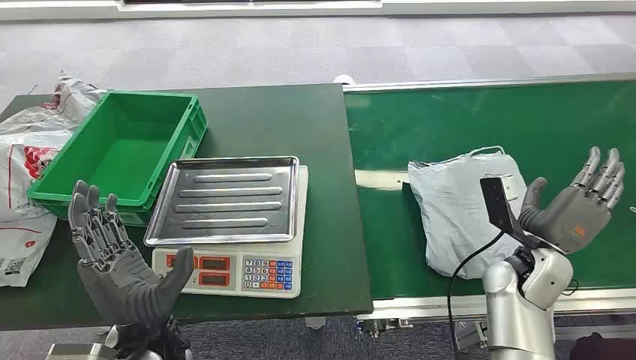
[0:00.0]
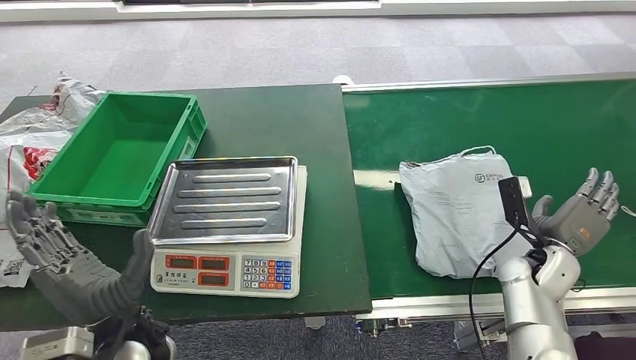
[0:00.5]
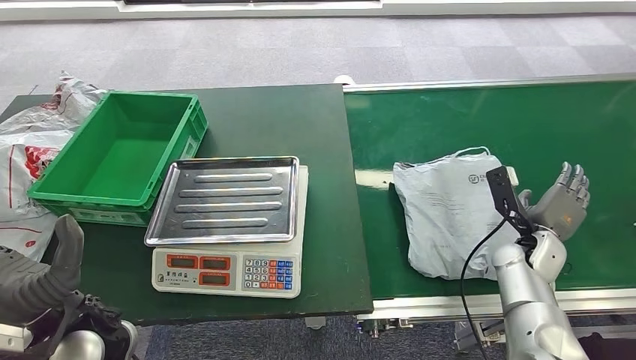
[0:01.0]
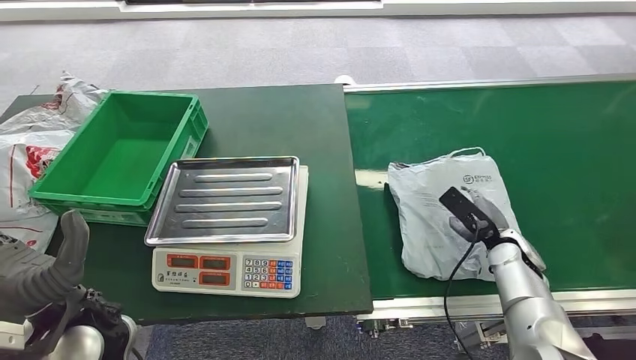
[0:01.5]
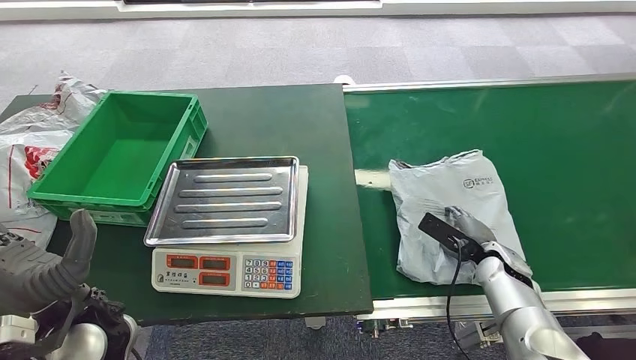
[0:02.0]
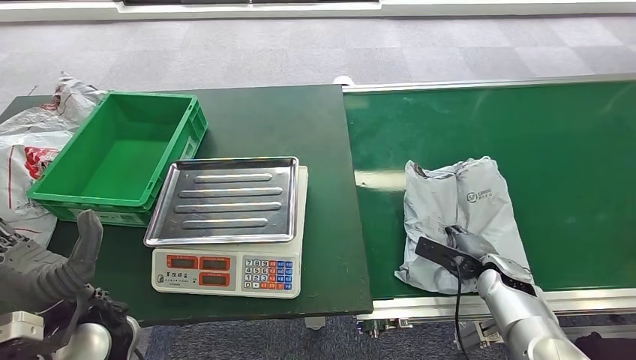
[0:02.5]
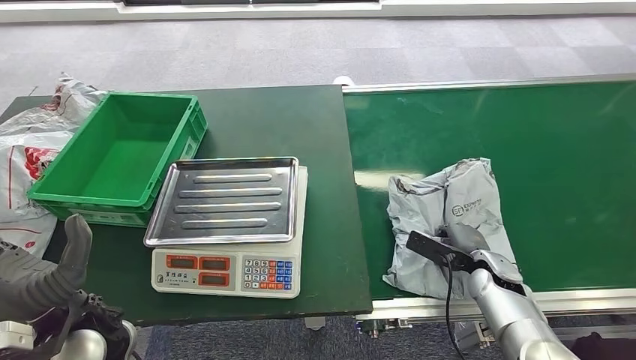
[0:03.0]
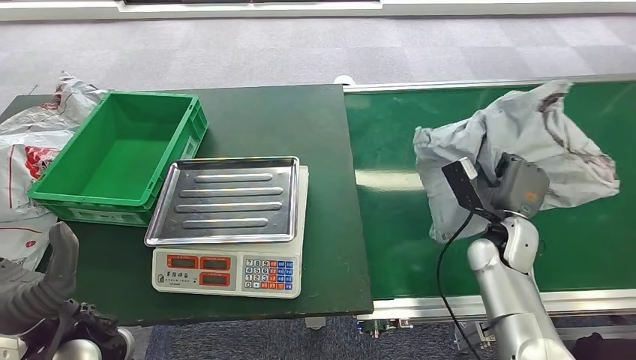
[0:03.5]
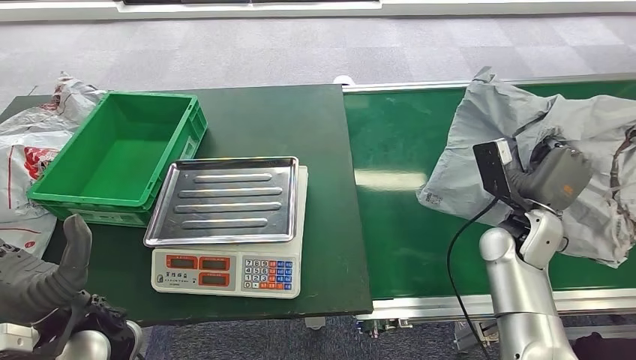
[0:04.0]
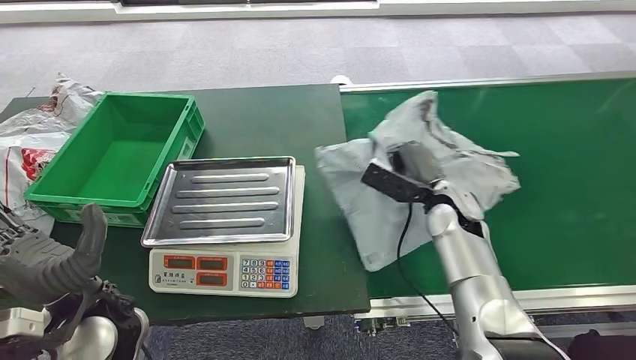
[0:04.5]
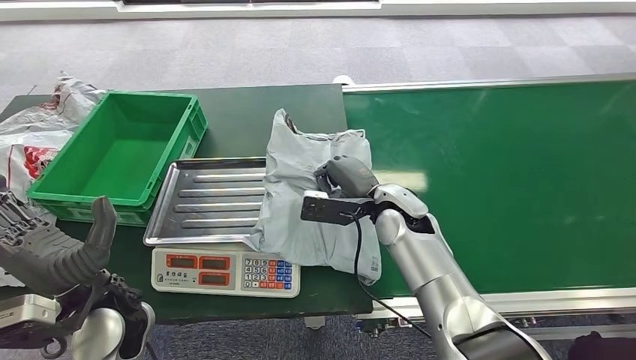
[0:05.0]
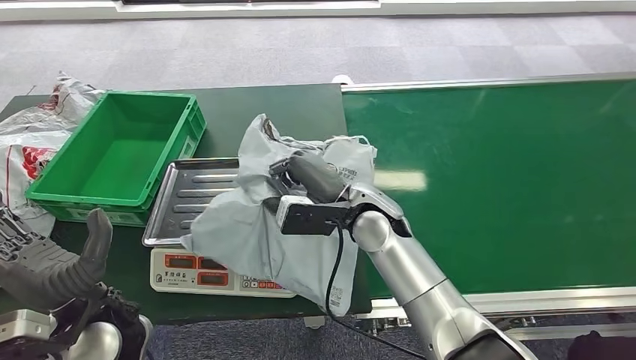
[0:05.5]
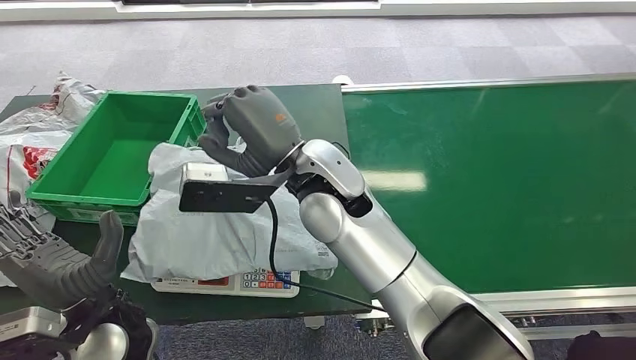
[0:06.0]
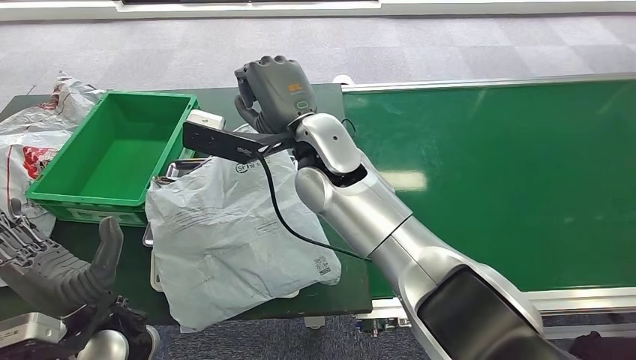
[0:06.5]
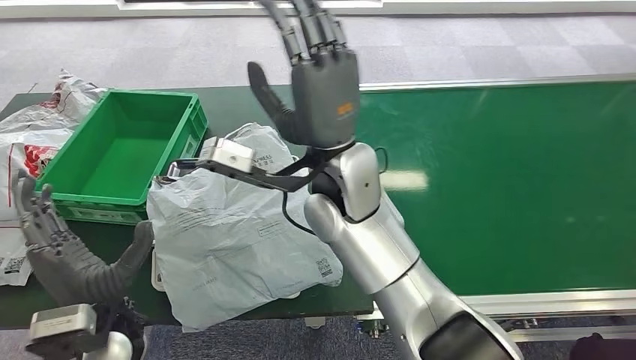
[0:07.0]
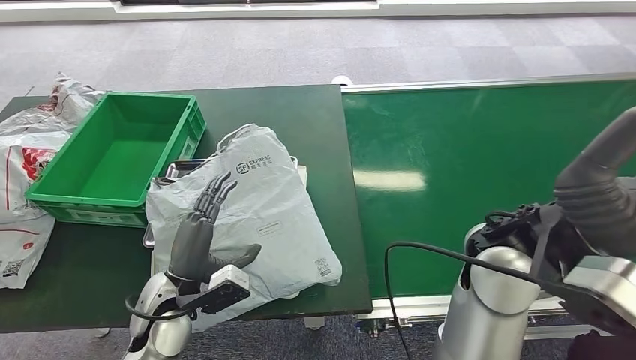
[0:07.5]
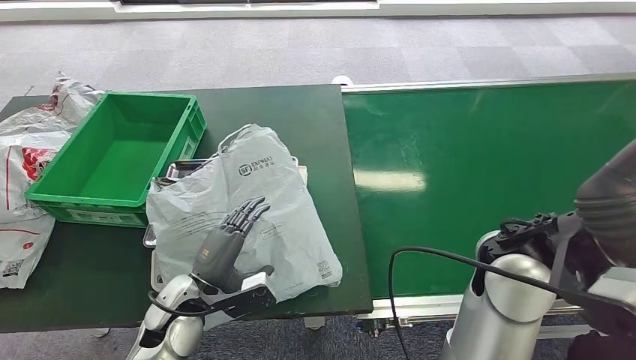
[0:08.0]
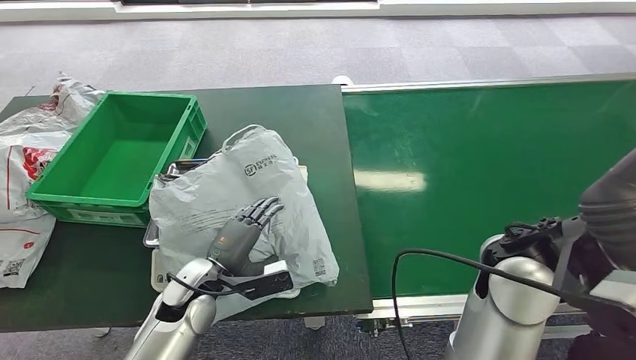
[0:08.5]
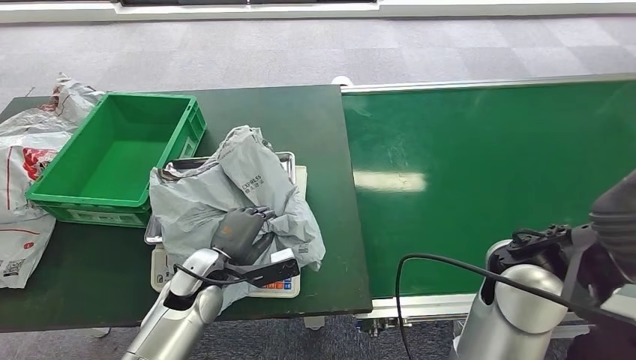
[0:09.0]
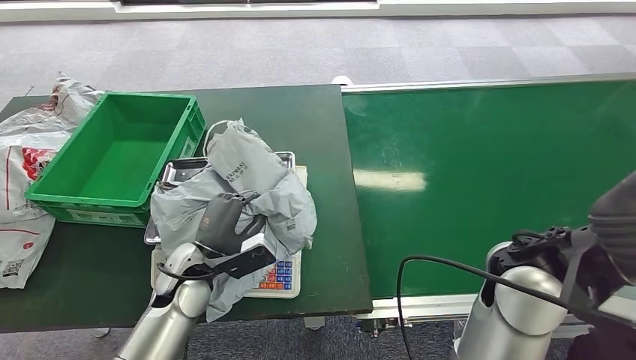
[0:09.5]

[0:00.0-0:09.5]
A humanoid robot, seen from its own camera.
Step, 0:00.0 to 0:03.5: Pick up the package from the conveyor belt.
Step, 0:04.0 to 0:07.0: Place the package onto the inbound machine.
0:07.5 to 0:09.5: The left hand travels forward by about 5 cm.

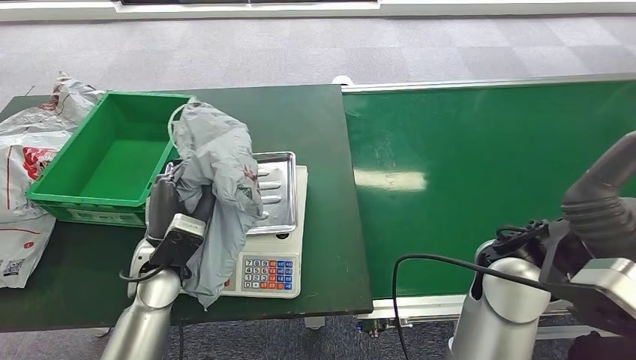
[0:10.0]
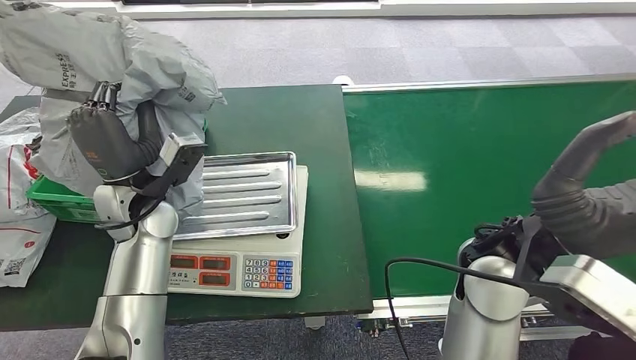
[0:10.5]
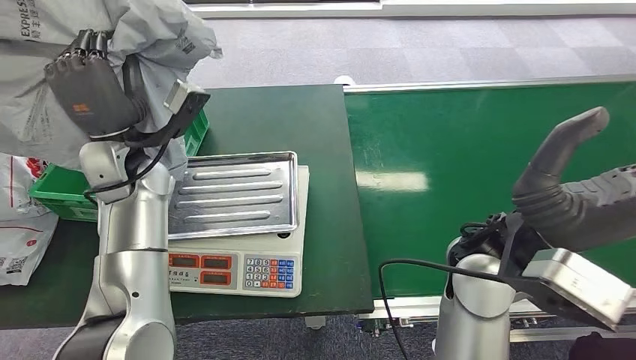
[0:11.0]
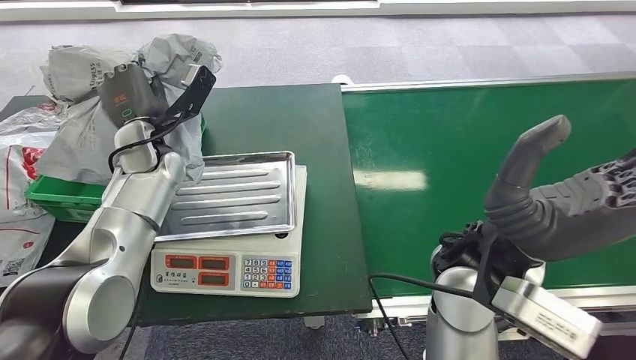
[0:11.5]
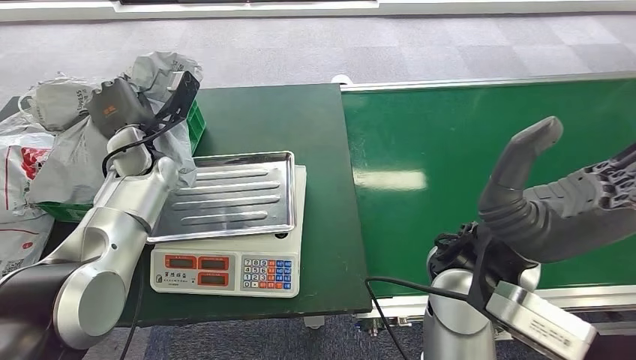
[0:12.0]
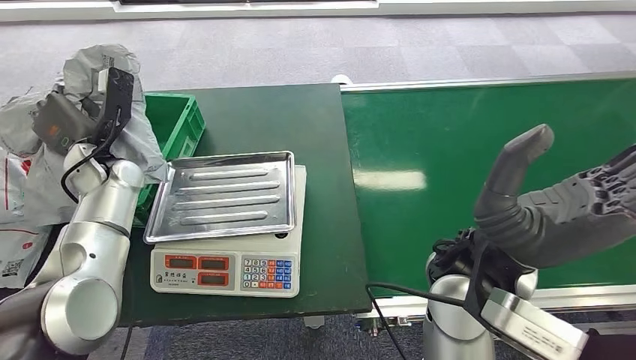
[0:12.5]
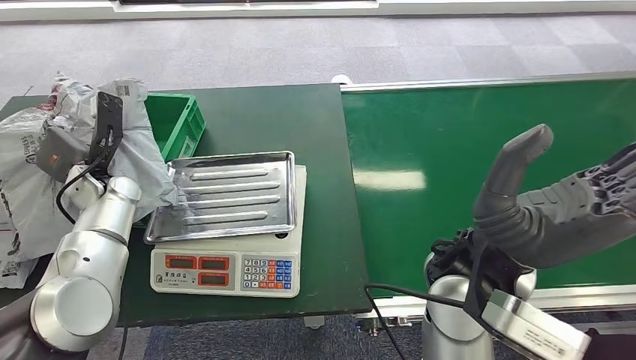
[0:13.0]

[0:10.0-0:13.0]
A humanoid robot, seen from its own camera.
Step, 0:11.0 to 0:13.0: Place the package into the parcel locker.

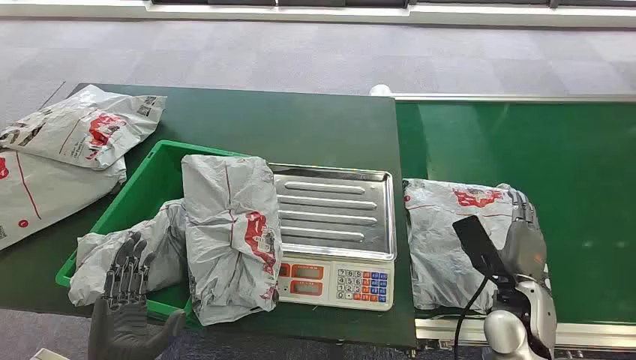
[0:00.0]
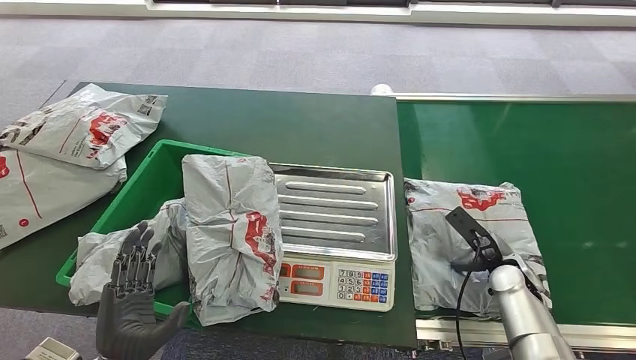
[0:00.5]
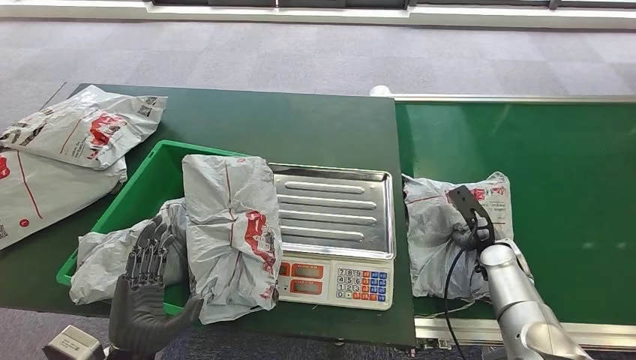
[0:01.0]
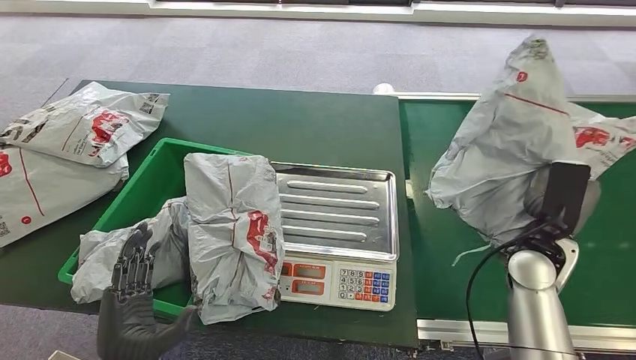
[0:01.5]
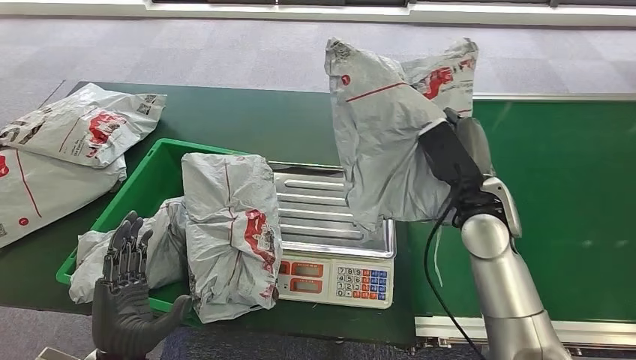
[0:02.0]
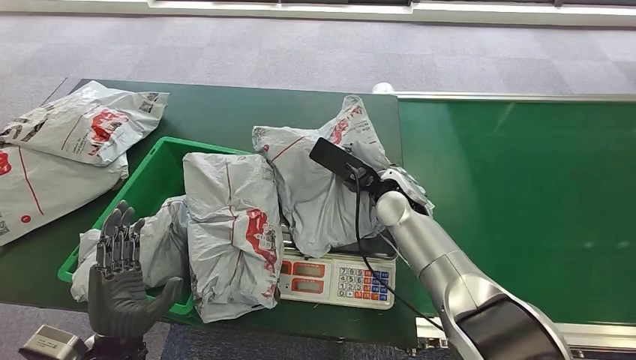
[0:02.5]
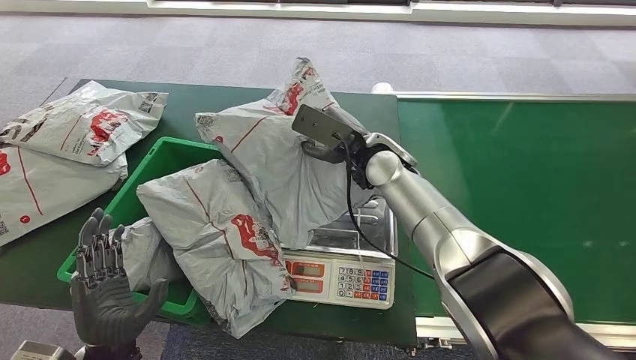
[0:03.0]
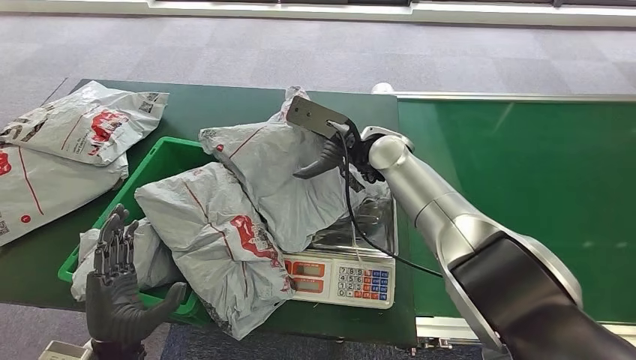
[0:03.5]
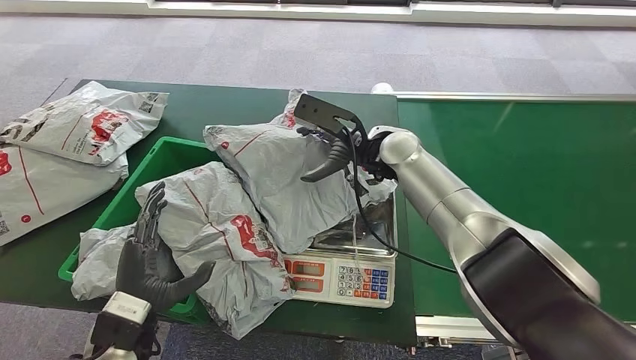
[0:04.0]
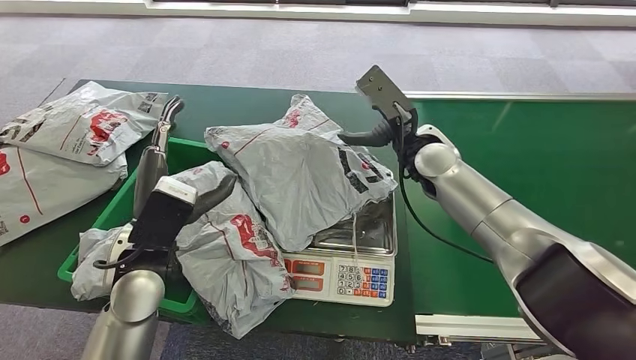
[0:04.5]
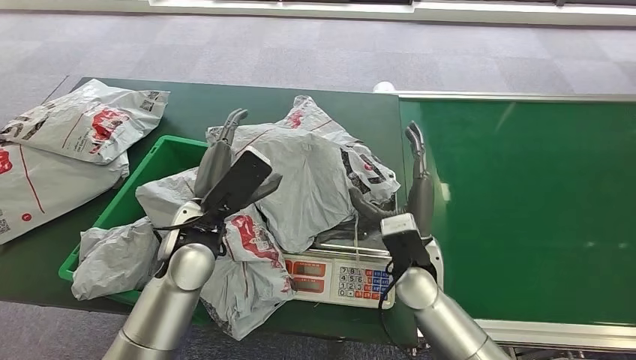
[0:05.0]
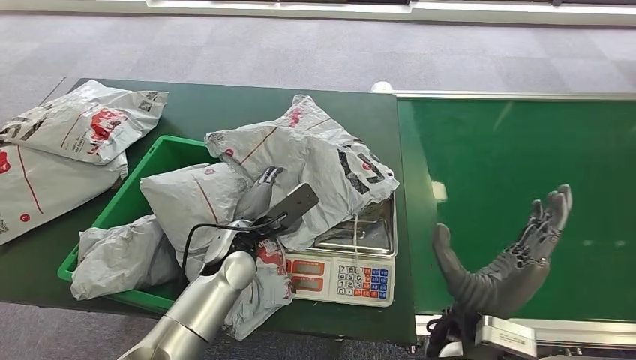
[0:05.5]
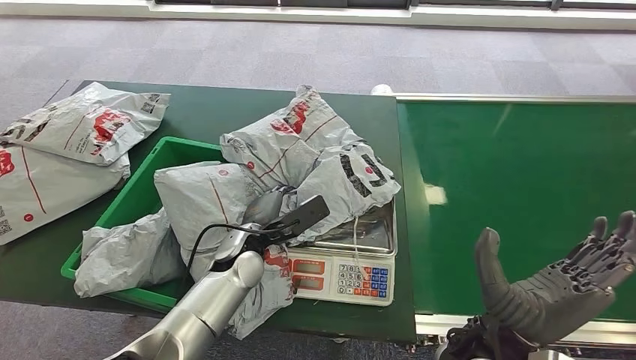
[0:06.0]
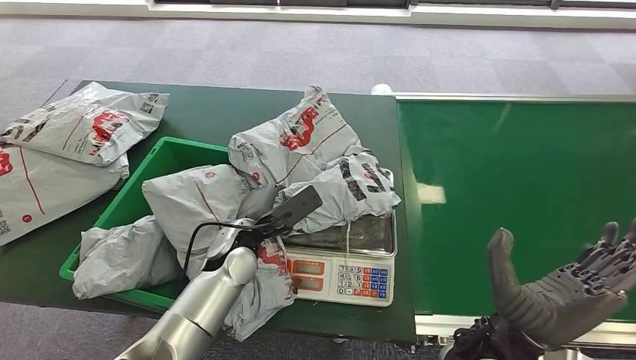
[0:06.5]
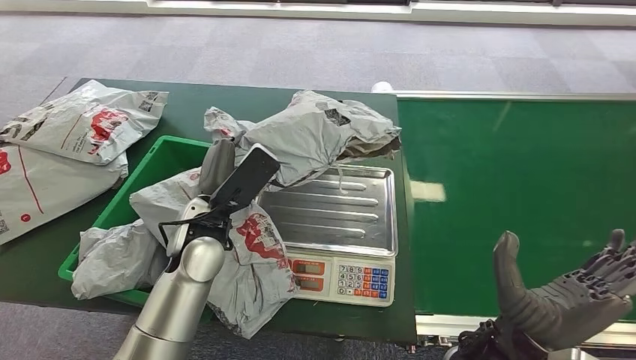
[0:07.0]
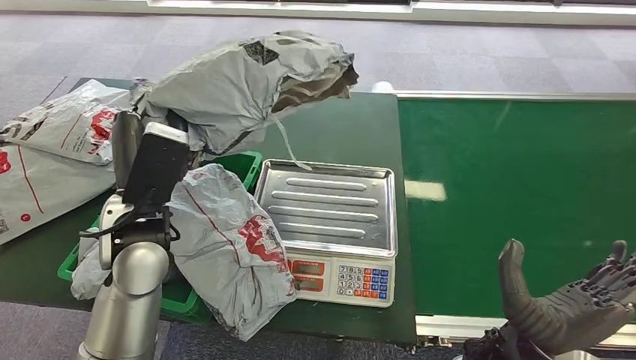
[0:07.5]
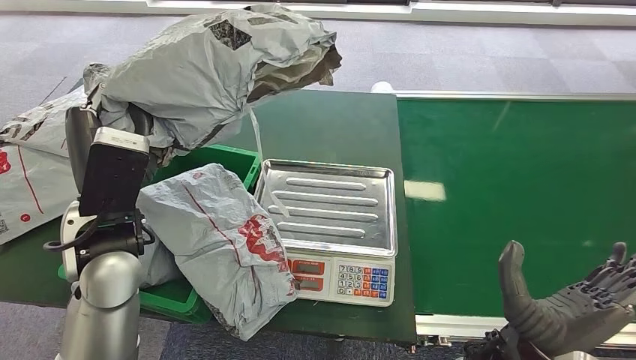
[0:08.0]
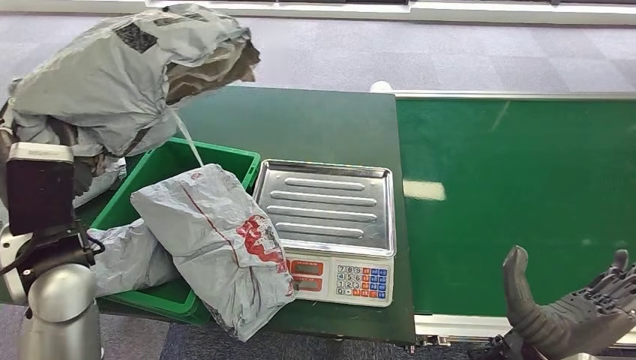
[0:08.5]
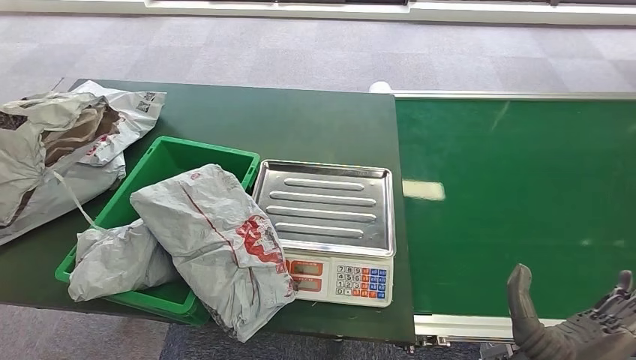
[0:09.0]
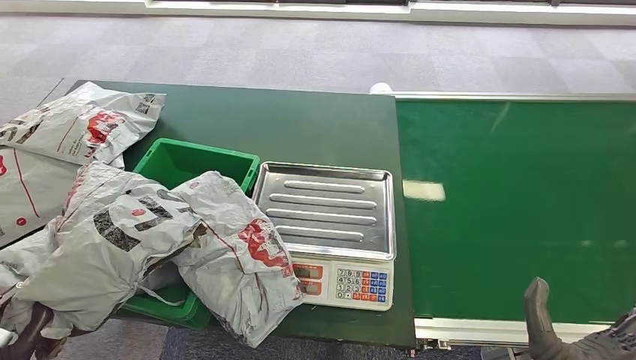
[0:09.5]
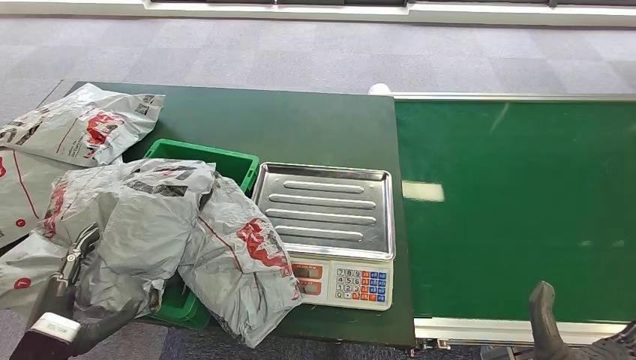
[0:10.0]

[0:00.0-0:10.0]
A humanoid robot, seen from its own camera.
Step, 0:00.0 to 0:01.5: Pick up the package from the conveyor belt.
Step, 0:02.0 to 0:04.5: Place the package onto the inbound machine.
Step, 0:05.0 to 0:07.0: Pick up the package from the inbound machine.
Step, 0:07.5 to 0:10.0: Place the package into the parcel locker.
